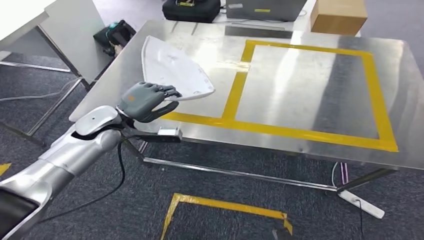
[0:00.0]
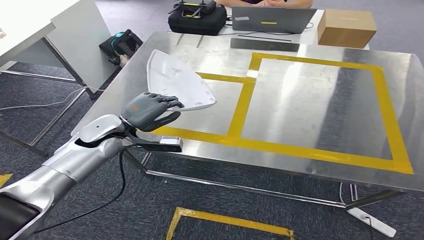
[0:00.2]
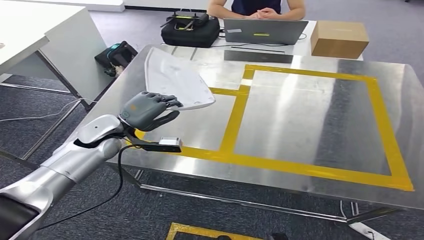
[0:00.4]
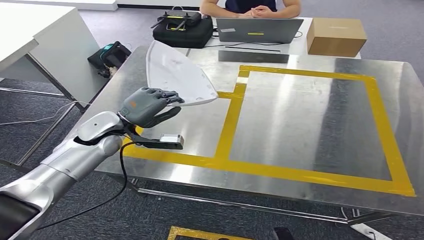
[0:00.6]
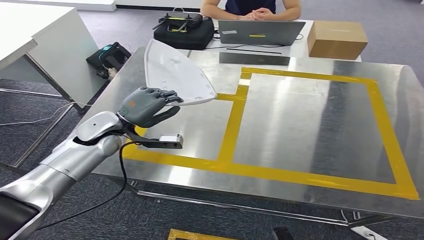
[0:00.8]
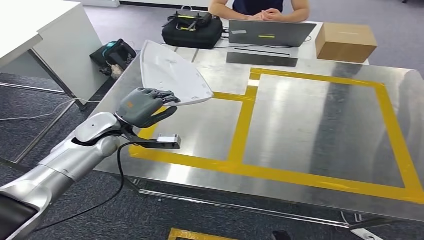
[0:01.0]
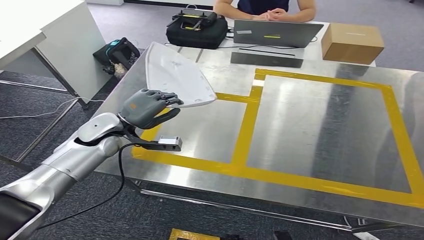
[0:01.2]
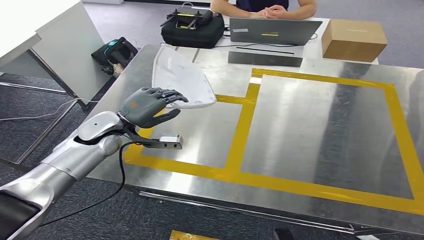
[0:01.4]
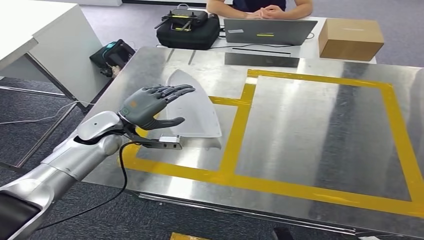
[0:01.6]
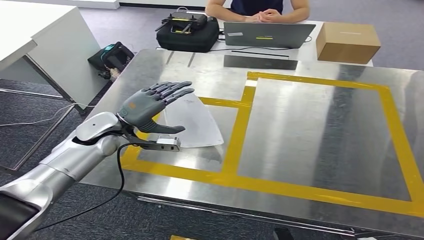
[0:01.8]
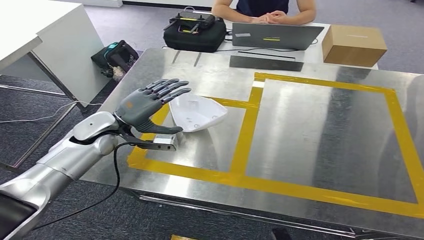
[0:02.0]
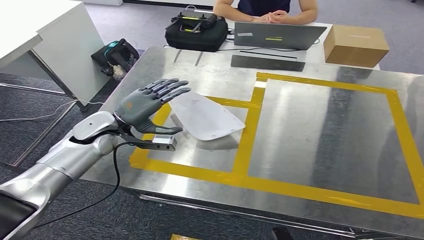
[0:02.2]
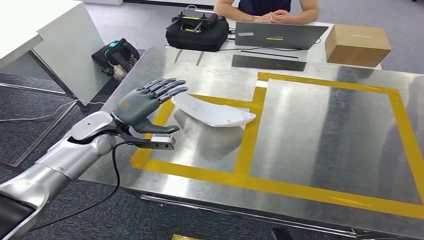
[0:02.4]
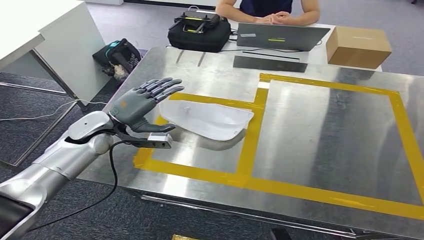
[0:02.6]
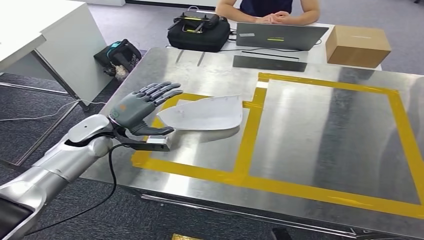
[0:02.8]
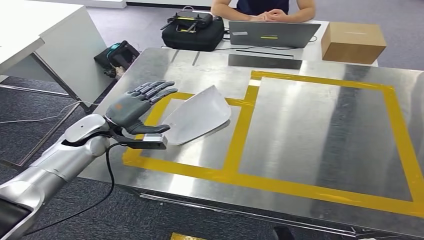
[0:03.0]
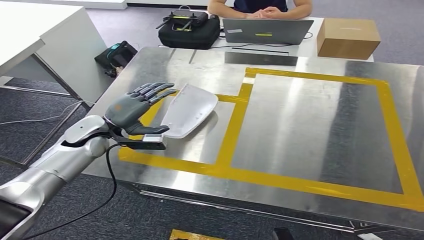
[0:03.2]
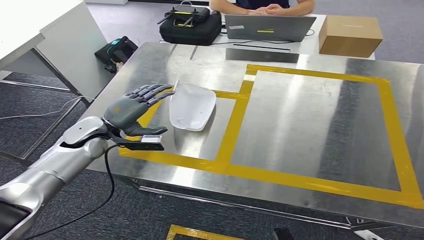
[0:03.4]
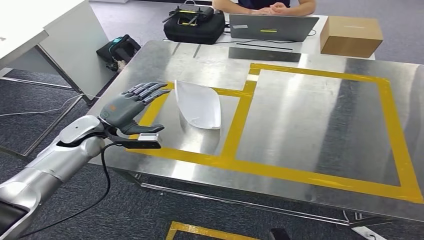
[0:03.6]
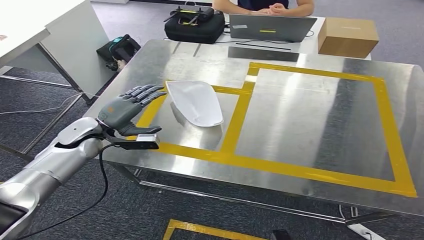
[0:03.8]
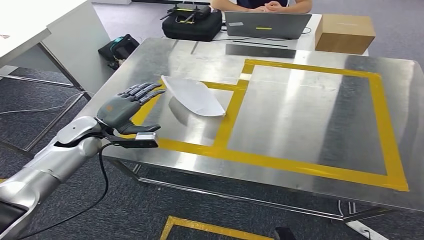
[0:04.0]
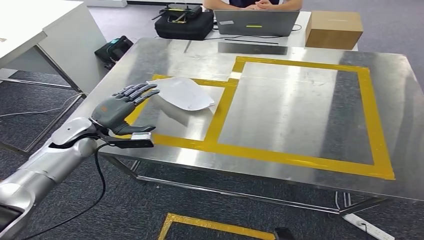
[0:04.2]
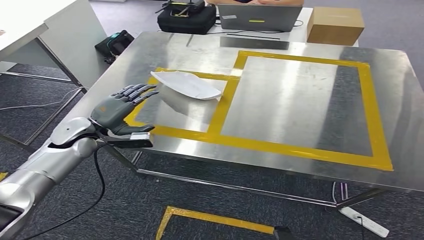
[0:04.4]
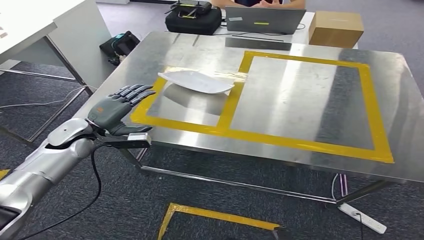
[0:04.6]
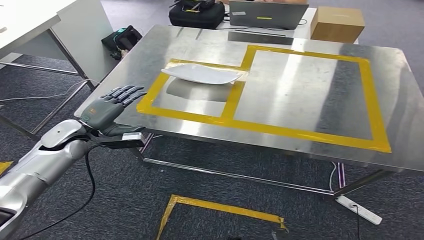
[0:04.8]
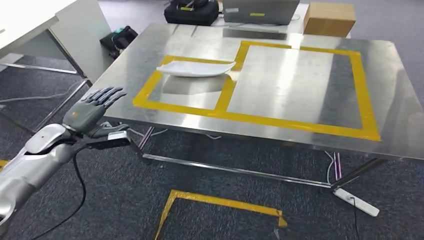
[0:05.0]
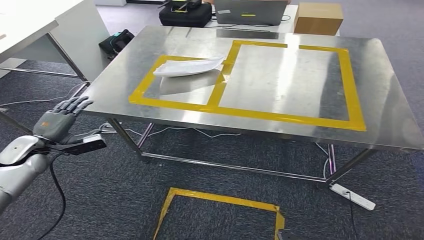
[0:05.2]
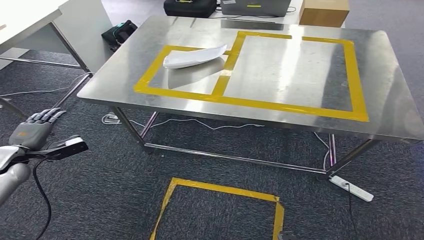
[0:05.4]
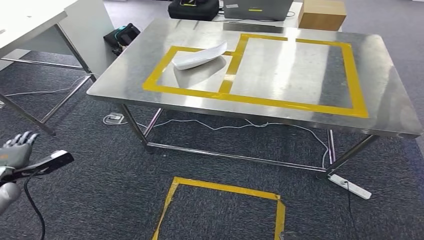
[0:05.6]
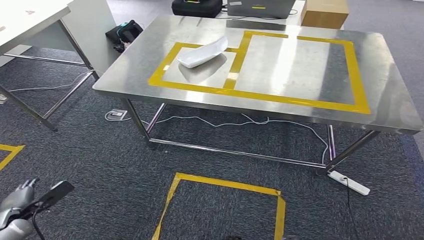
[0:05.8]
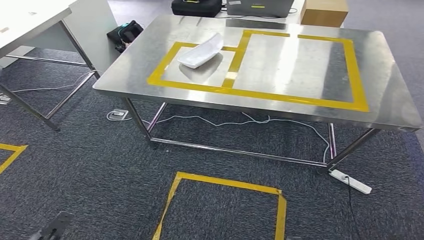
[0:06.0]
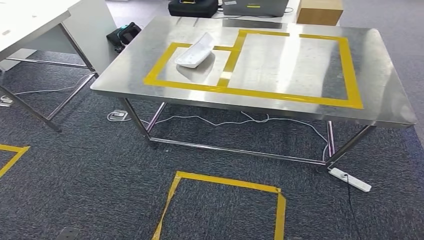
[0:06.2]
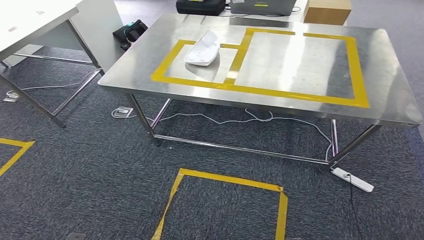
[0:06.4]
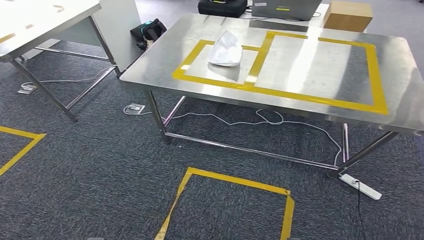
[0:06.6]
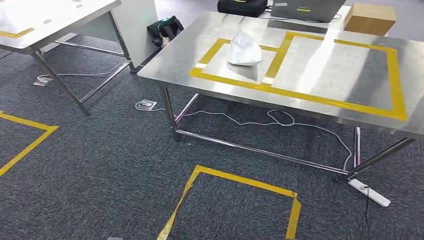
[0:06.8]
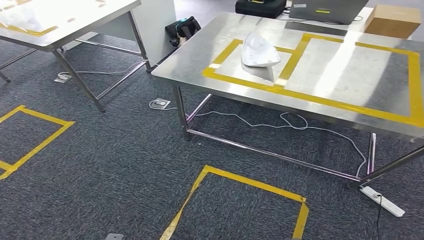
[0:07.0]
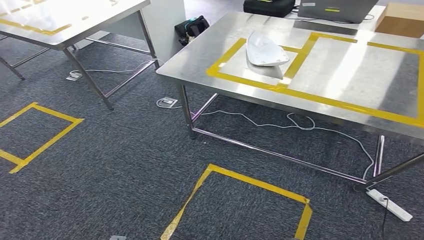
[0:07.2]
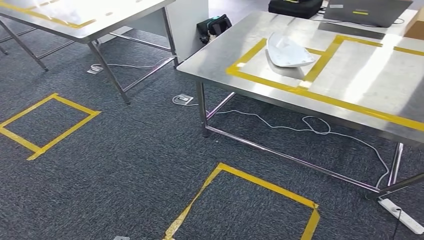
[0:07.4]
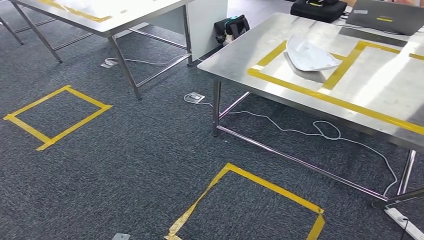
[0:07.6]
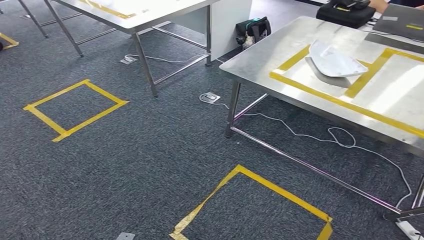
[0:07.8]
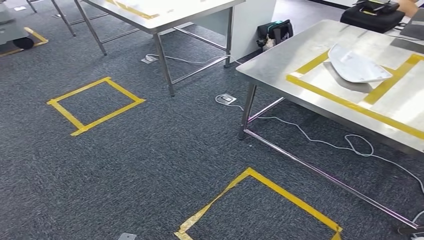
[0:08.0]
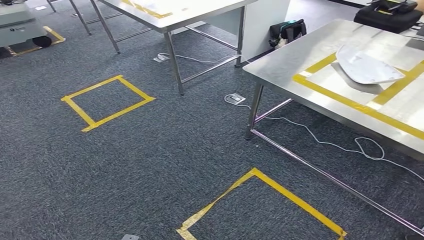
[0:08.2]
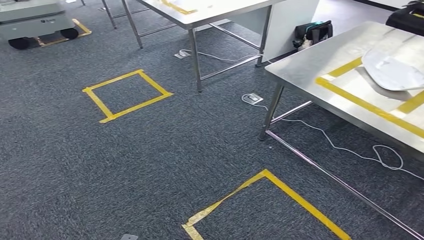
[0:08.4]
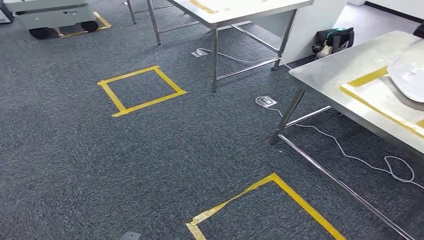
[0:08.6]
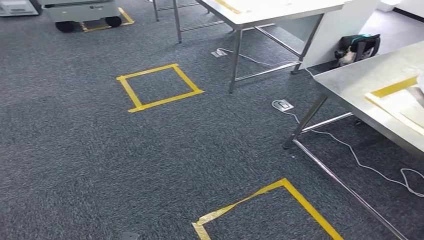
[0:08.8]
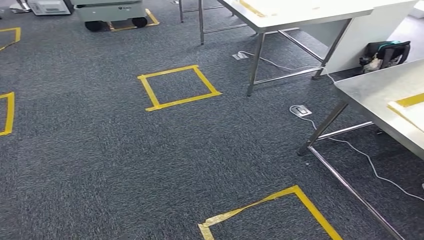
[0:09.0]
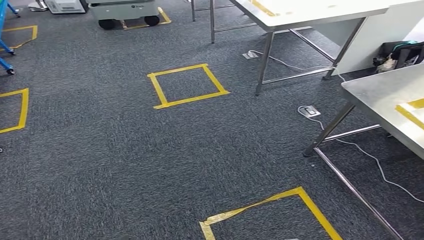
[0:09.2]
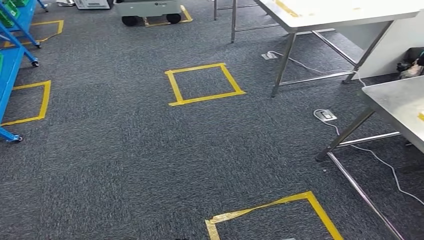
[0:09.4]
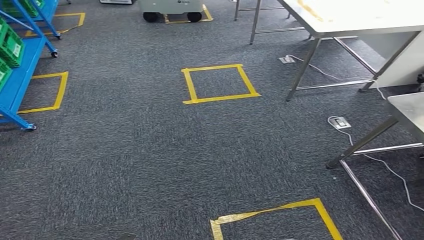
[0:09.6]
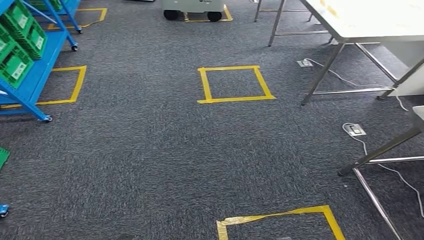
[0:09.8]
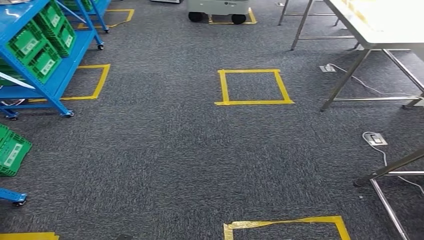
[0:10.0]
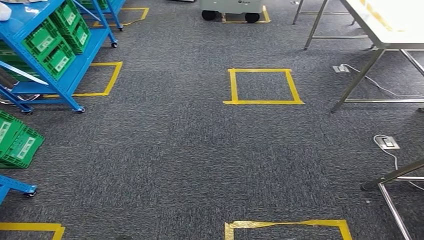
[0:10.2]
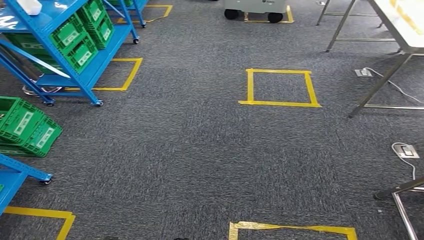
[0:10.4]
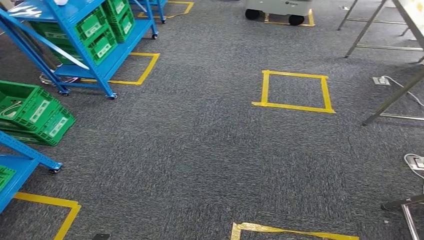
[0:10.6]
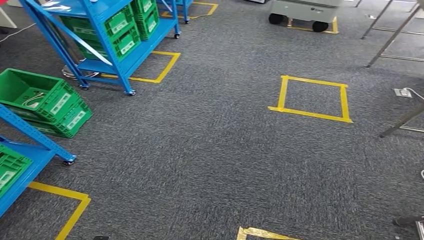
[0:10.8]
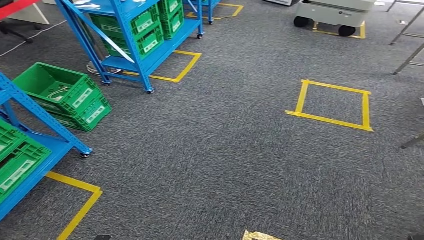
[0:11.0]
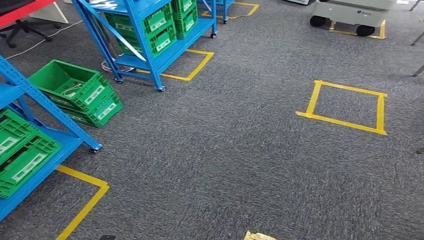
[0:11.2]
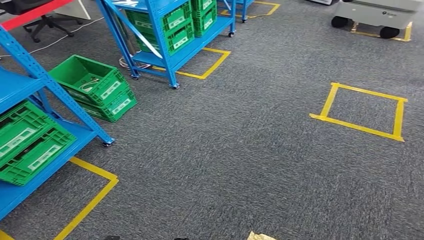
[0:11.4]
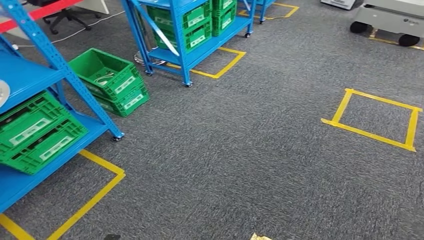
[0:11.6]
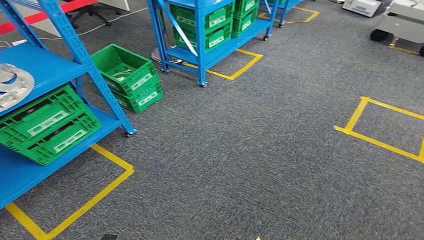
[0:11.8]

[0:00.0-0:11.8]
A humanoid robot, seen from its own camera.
Step, 0:00.0 to 0:03.4: Insert the small component into the corresponding slot on the workbench.

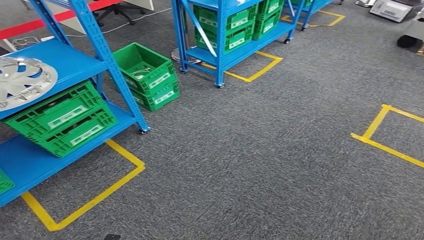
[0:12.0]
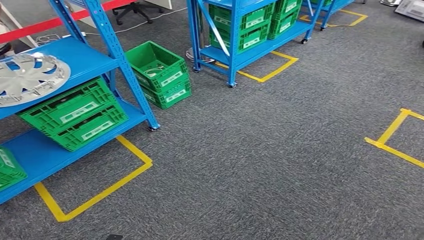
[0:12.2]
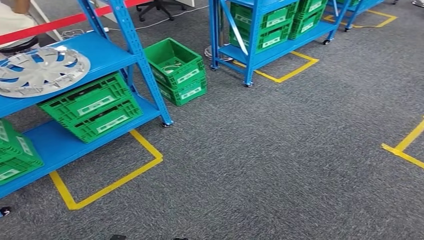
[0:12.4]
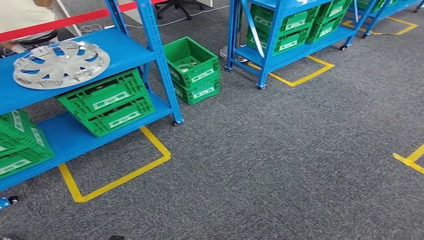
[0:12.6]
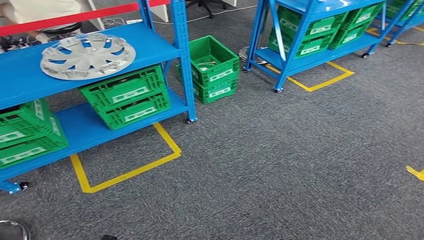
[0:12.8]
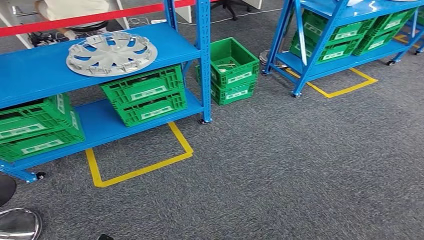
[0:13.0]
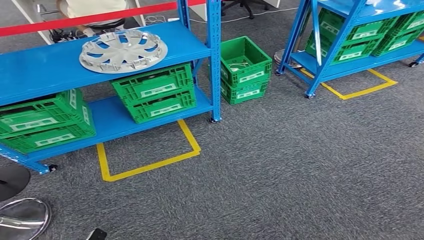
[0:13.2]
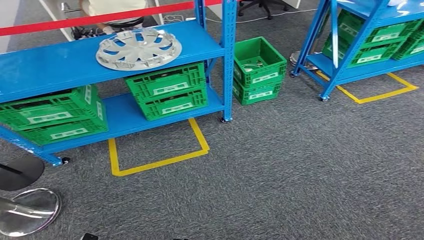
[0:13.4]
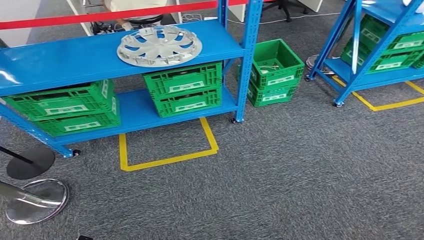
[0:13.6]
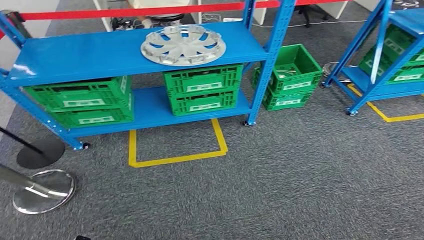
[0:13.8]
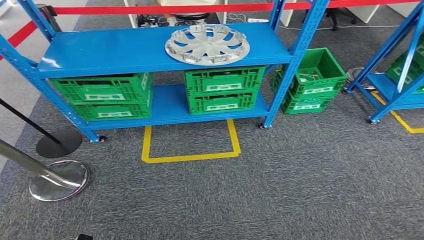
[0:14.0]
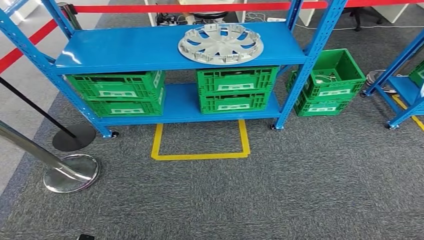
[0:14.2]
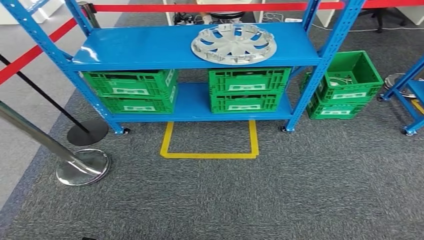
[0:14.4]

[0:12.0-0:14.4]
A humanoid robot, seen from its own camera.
Step, 0:12.0 to 0:14.4: Move to the initial position of the workbench.
